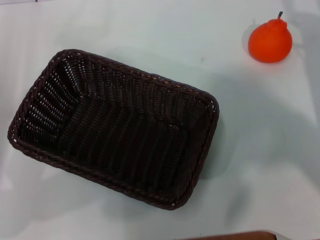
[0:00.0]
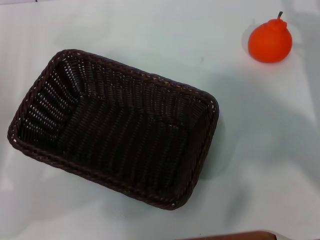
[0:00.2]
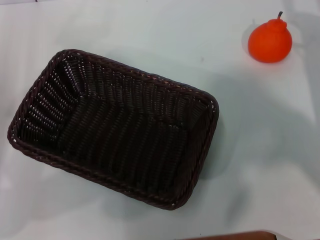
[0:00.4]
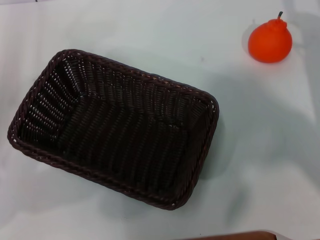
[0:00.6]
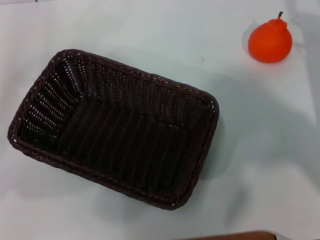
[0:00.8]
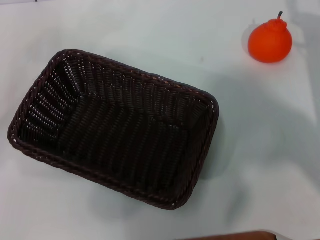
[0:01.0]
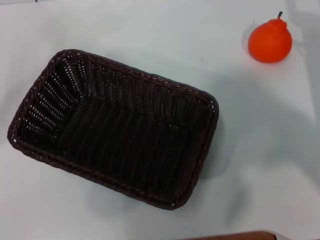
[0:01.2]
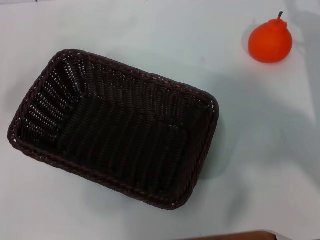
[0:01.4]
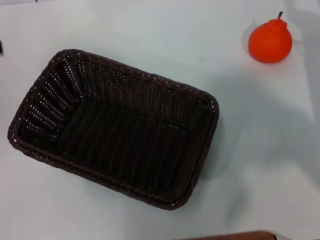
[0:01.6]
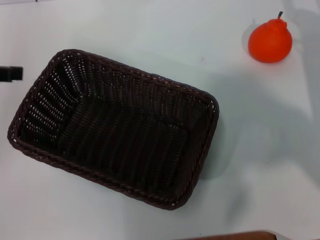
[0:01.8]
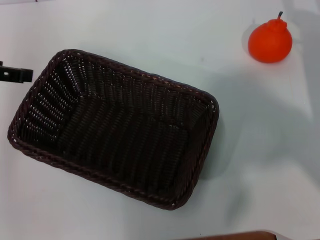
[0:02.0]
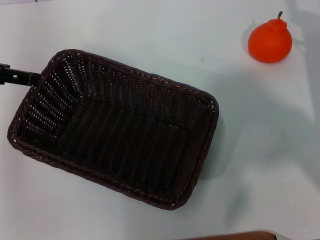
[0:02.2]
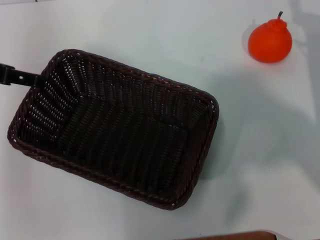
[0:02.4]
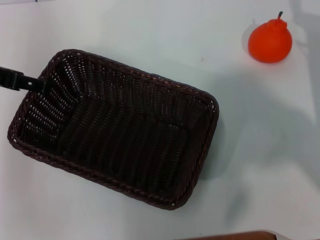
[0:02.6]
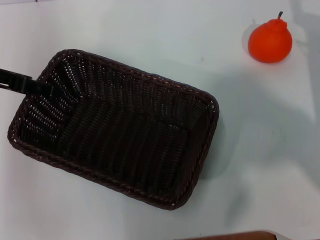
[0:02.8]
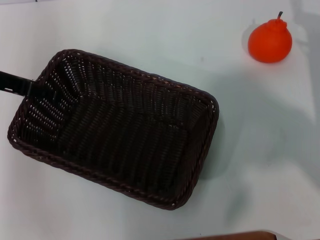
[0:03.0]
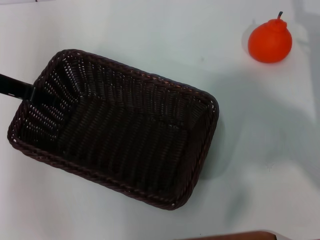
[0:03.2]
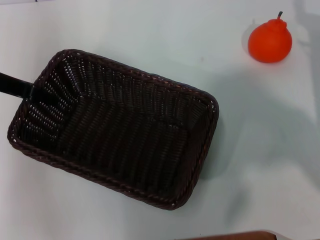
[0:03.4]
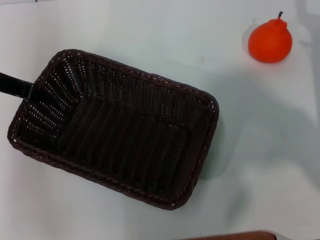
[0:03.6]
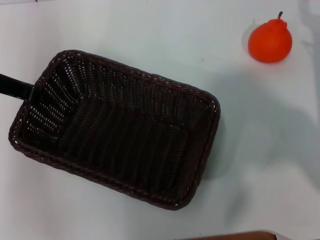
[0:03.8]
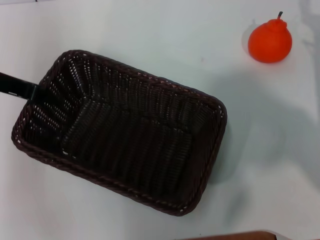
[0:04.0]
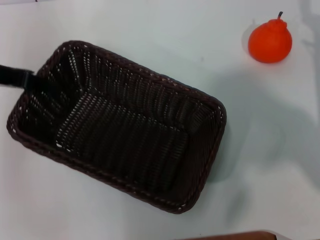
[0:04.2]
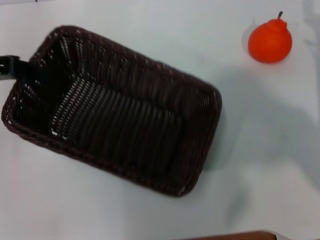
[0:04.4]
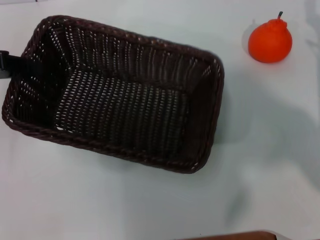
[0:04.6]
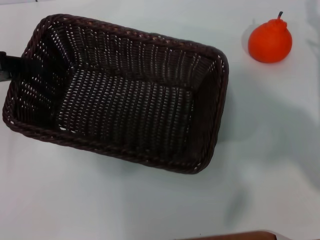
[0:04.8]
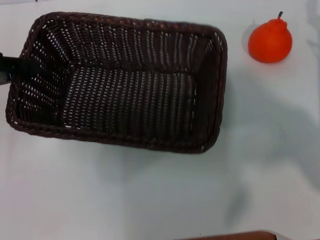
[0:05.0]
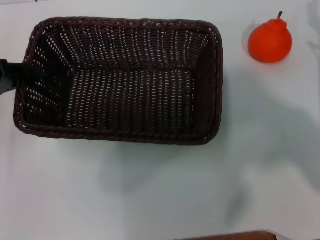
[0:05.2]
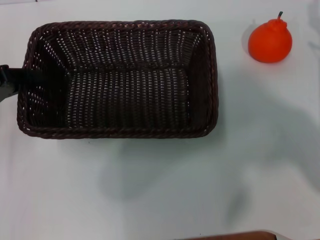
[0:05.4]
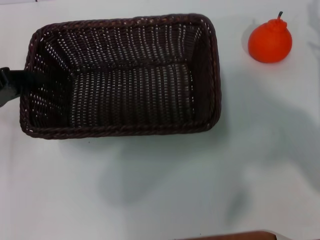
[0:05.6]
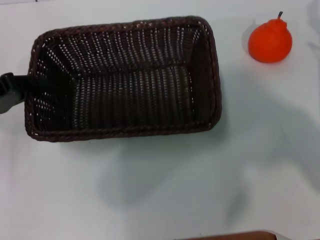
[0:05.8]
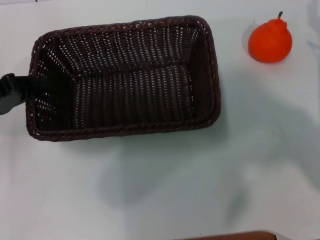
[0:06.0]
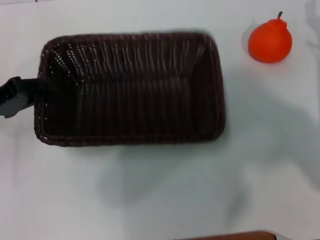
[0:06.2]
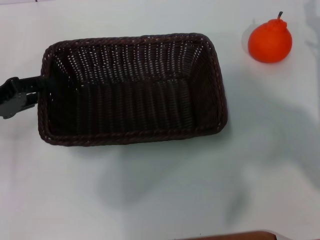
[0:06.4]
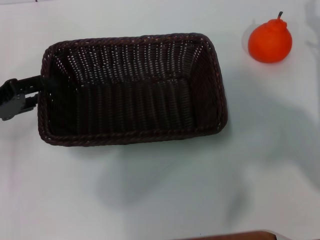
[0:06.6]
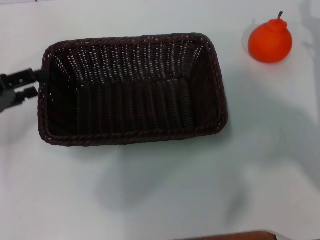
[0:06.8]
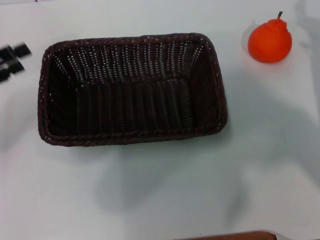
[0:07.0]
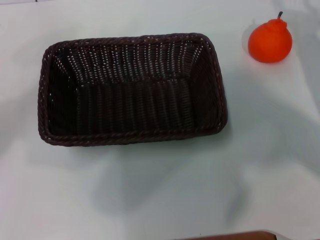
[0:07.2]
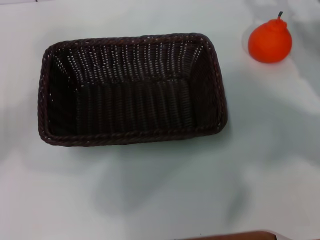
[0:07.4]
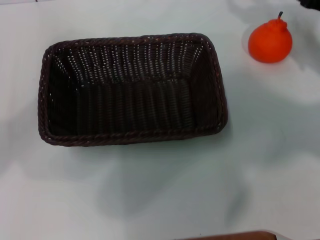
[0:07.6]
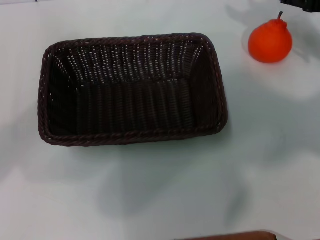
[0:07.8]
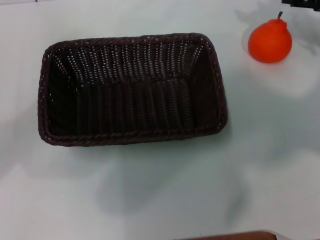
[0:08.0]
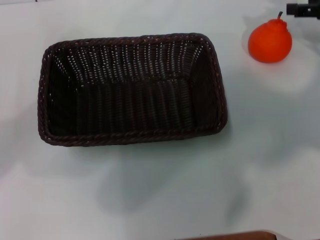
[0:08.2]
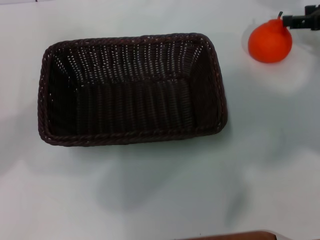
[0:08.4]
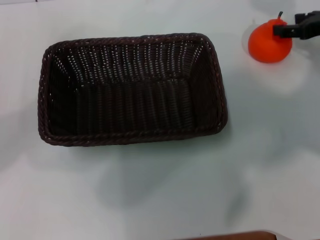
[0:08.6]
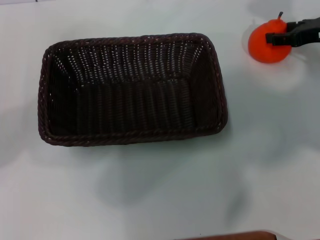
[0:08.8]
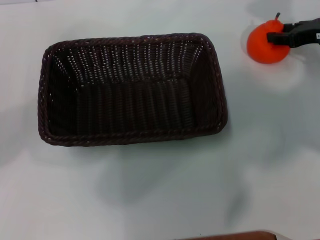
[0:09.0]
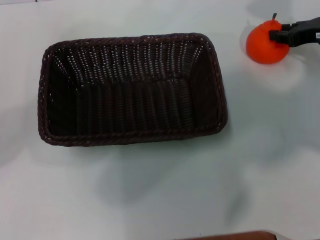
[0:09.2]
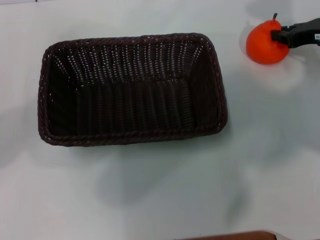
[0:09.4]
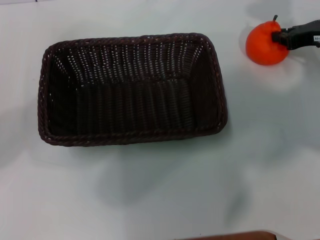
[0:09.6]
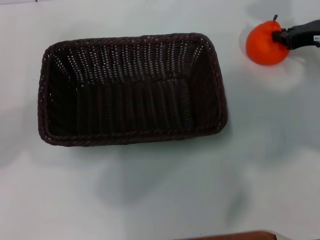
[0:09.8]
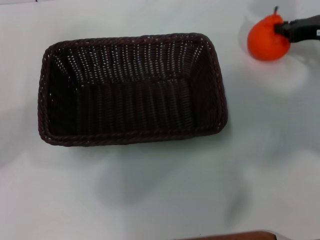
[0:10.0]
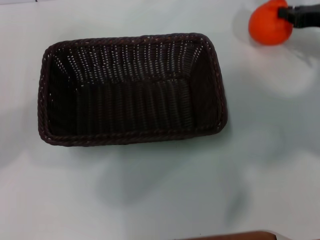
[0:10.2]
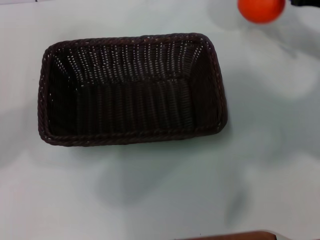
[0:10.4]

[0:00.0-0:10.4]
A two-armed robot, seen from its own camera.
Task of the whole recording: the left gripper pick up the black basket and place it horizontally in the middle of the table, the right gripper pick up the orange and place it into the black basket.
Step, 0:00.0 to 0:03.8: Pick up the dark basket with the left gripper.
Step, 0:04.2 to 0:06.4: Place the dark basket in the center of view with the left gripper.
Step, 0:06.6 to 0:10.0: Pick up the orange with the right gripper.
0:00.0 to 0:01.4: The left gripper is displaced upward and to the left by roughly 15 cm, and opens up.
0:01.4 to 0:03.0: The left gripper is displaced to the right and forward by roughly 10 cm.
0:03.0 to 0:04.4: The left gripper closes.
0:04.4 to 0:06.0: The left gripper travels downward by about 10 cm.
0:06.0 to 0:07.4: The left gripper moves roughly 5 cm, and opens up; the right gripper shifts by approximately 5 cm.
0:09.0 to 0:10.4: The right gripper closes its fingers.

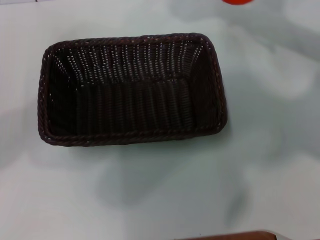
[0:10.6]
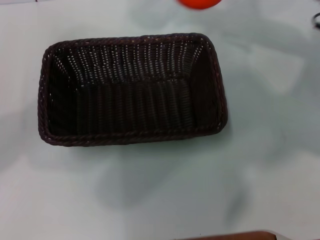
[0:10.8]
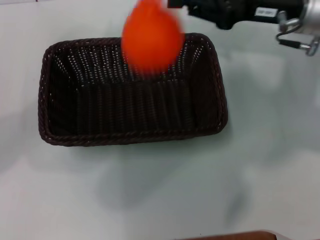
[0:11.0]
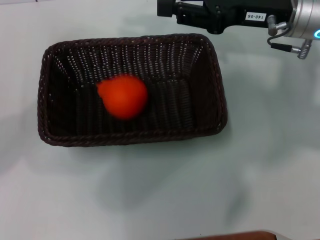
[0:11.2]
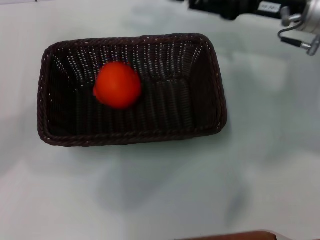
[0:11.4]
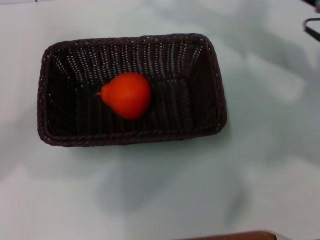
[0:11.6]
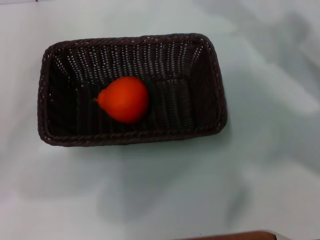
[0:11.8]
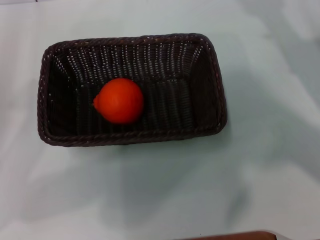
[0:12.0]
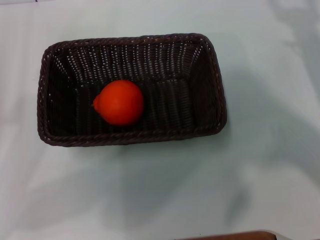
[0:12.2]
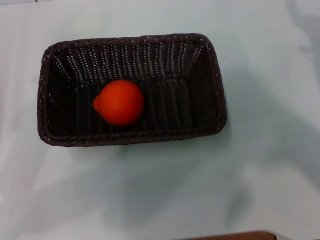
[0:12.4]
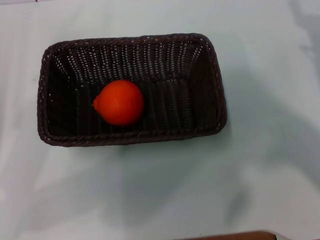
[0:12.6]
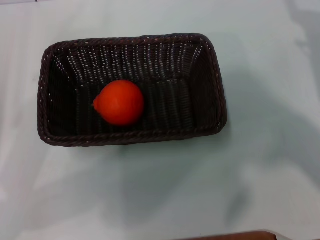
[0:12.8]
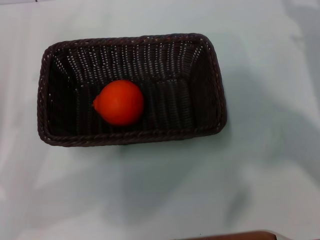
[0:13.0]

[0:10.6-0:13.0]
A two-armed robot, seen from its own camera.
Task of the whole recording: the left gripper pick up the black basket and place it horizontally in the middle of the table, the right gripper pick up the orange and place it into the black basket.
0:10.6 to 0:11.8: The right gripper moves roughly 10 cm to the left and comes back, and opens its fingers.
0:11.8 to 0:13.0: The right gripper moves downward, roughly 5 cm.
